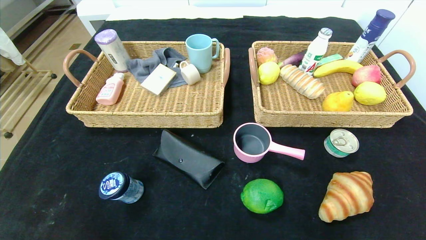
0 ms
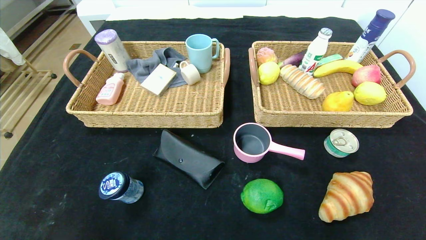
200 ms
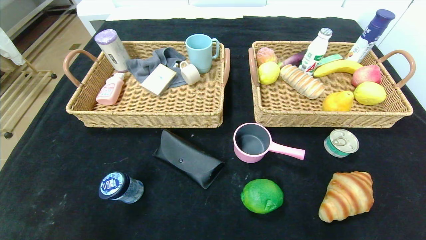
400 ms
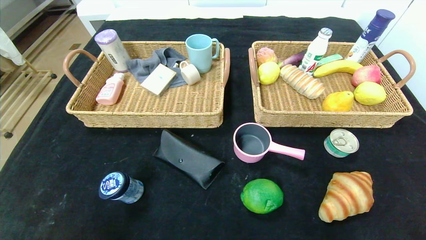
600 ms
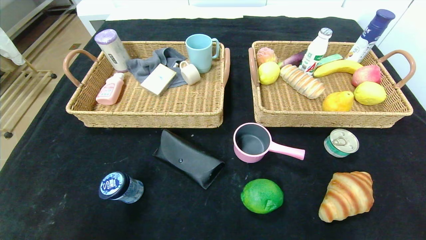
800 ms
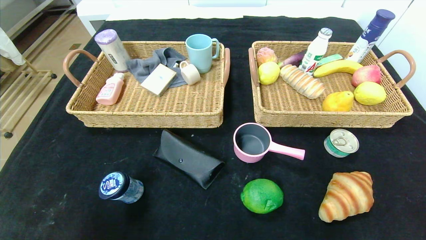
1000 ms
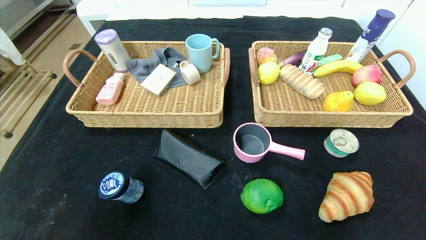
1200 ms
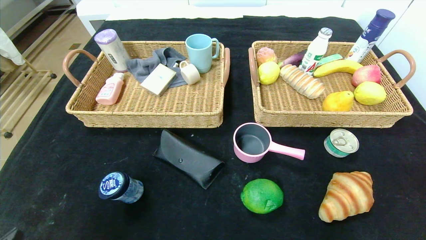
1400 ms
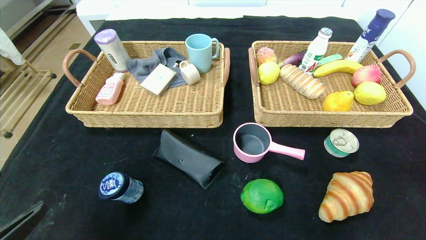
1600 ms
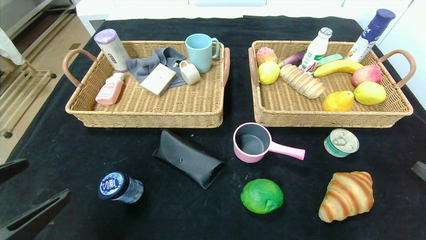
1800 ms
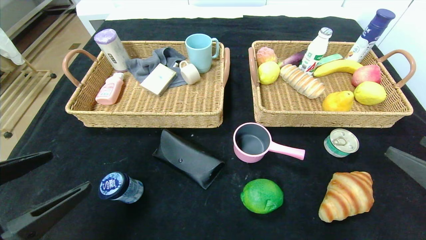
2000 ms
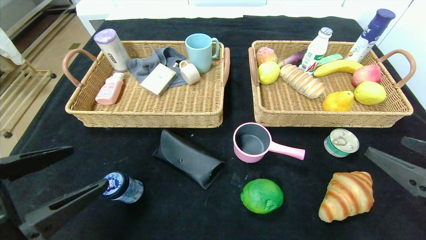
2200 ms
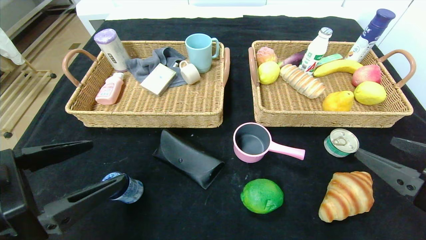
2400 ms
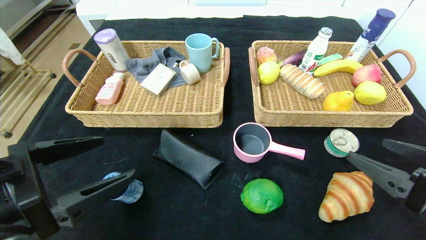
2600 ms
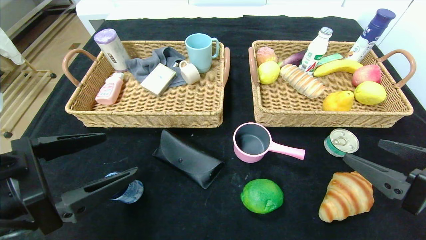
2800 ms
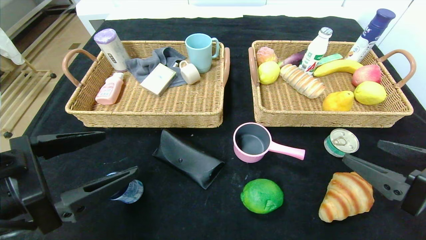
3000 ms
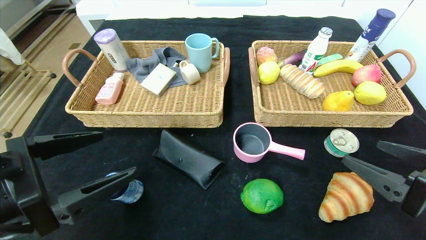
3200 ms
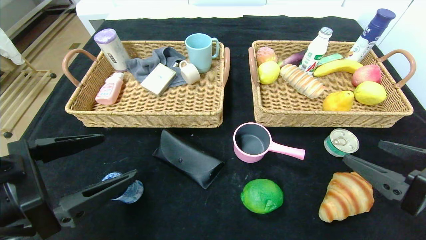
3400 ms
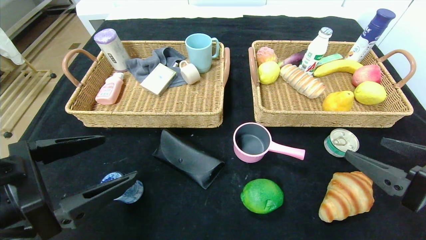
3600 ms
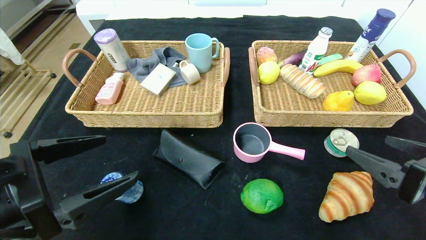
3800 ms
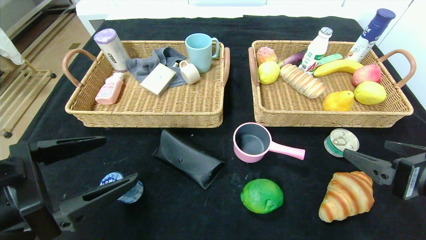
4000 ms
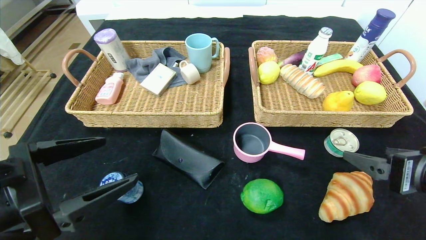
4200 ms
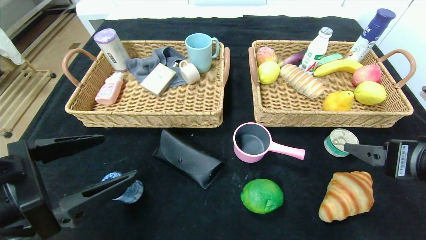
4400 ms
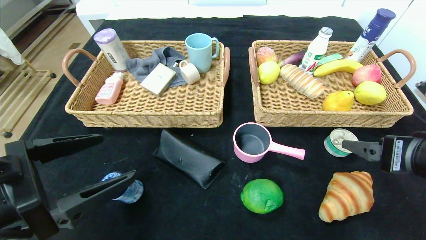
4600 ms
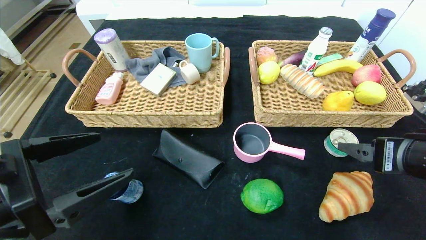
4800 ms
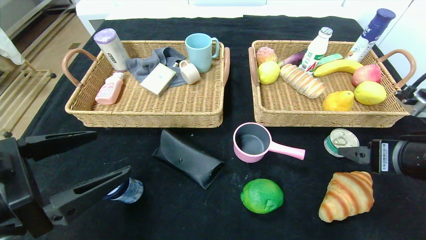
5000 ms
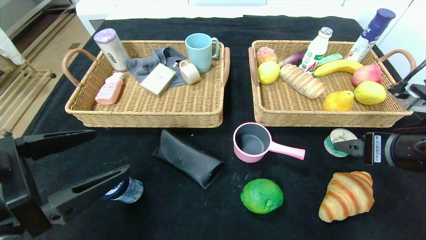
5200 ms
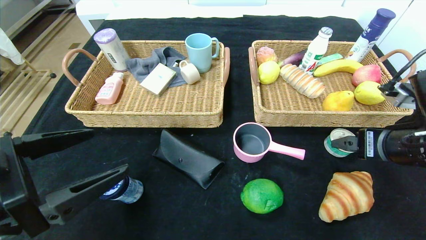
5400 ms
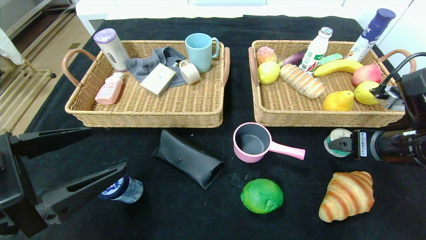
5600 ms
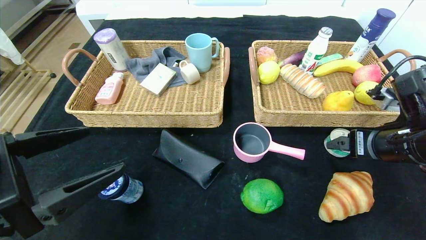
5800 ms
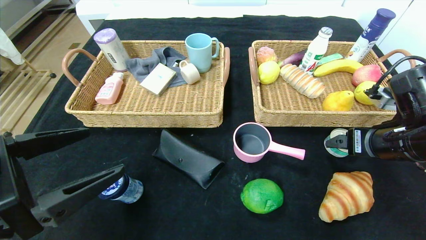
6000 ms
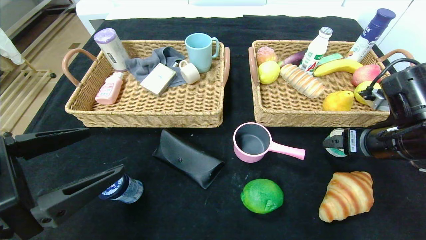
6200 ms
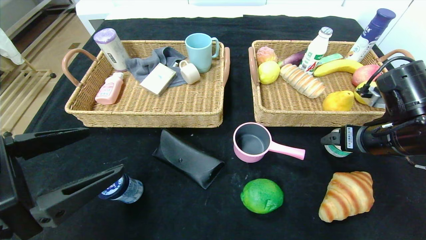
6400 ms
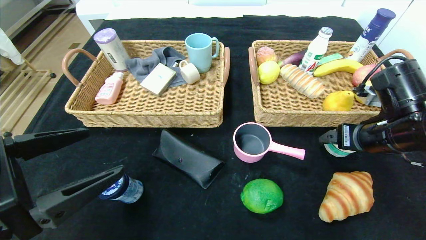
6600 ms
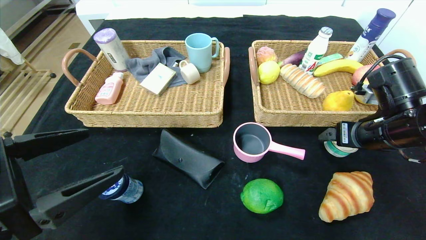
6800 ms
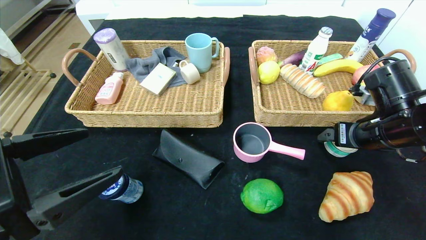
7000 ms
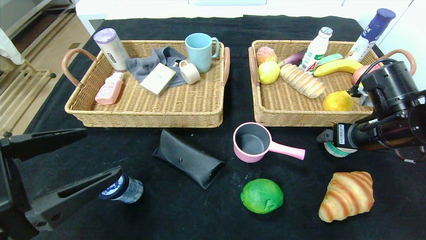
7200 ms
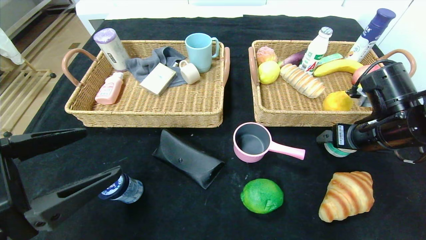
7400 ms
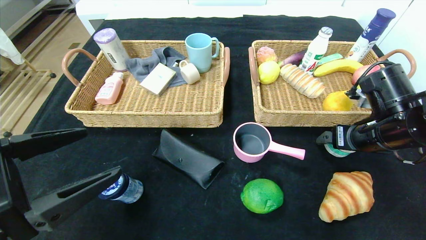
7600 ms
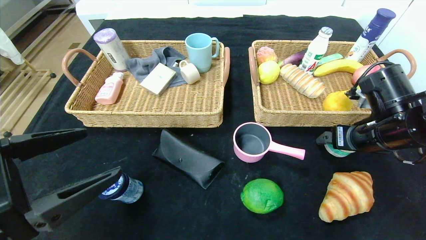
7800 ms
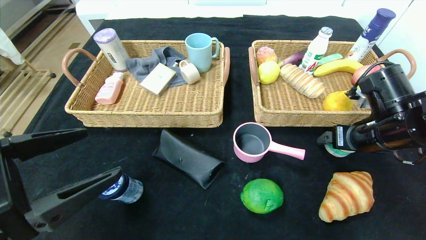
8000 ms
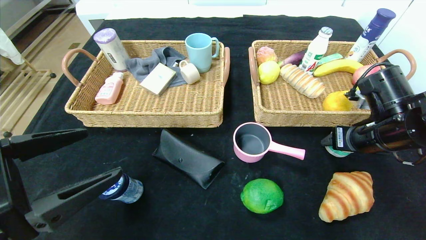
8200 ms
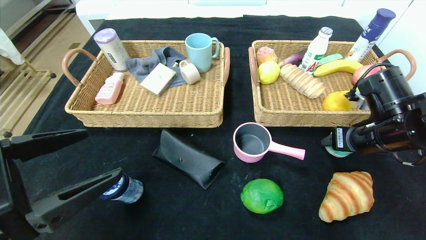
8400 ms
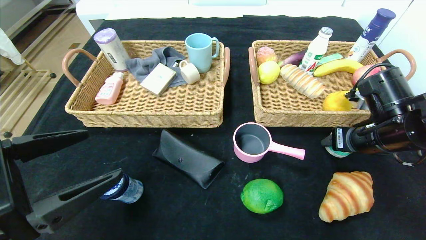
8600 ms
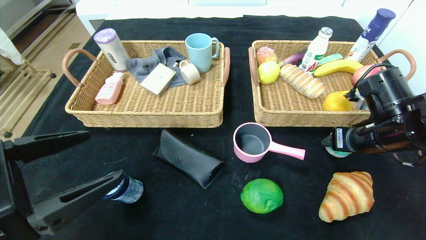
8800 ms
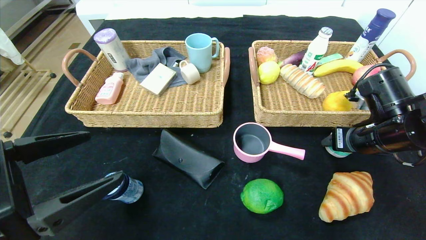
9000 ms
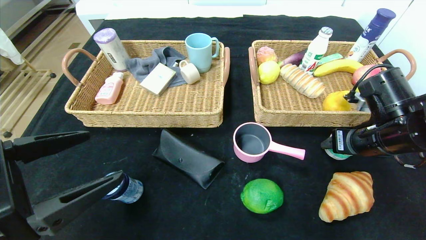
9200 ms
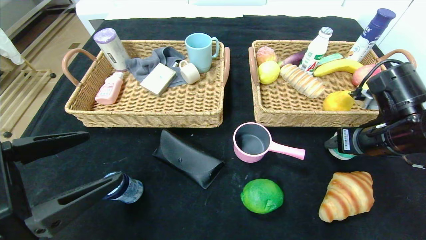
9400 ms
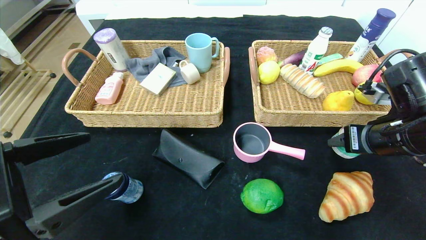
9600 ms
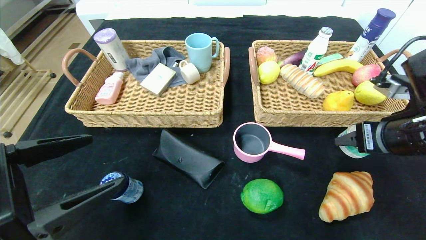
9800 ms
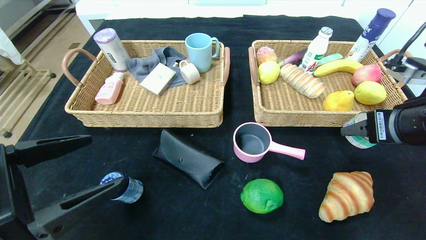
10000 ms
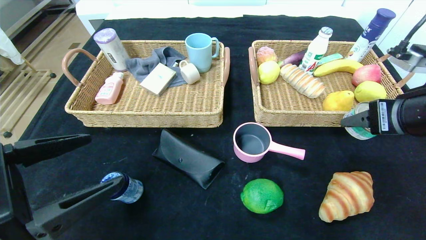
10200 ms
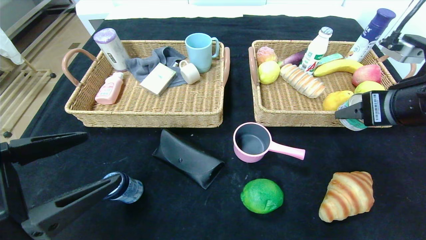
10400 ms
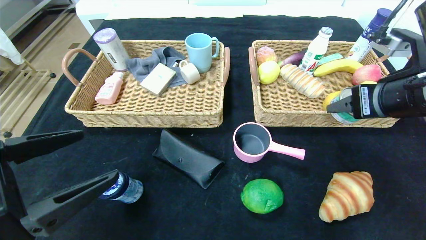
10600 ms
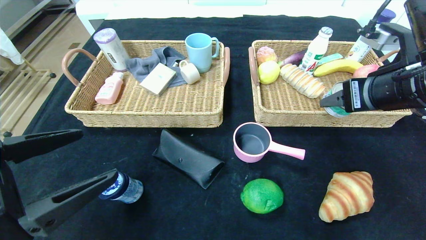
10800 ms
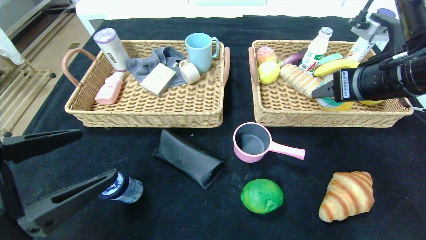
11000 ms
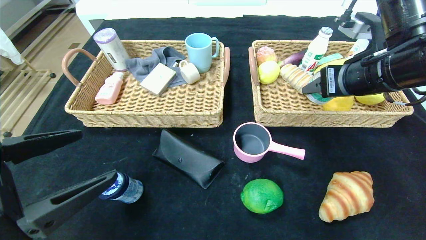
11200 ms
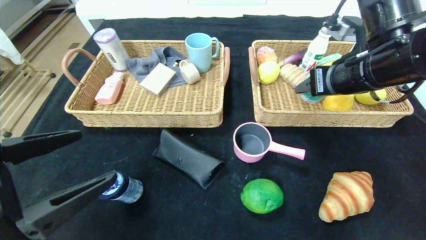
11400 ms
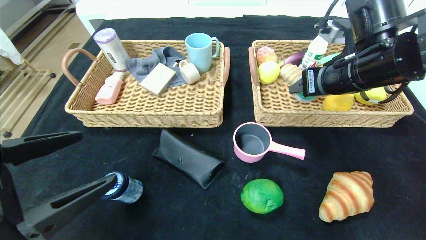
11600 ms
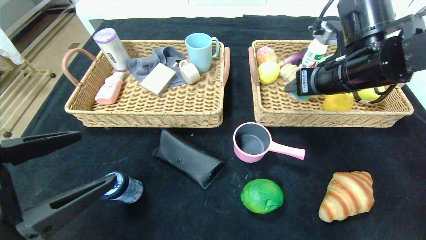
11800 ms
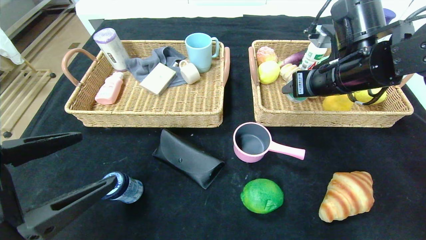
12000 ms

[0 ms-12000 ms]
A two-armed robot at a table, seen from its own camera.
0 ms to 1600 ms: The left gripper moves upward and forward, about 15 cm.
1600 ms to 3000 ms: The left gripper goes about 10 cm forward. The right gripper heads forward and to the left, covering approximately 10 cm.
4400 ms to 6000 ms: The right gripper moves forward, roughly 10 cm.
6000 ms to 7600 ms: There are only small adjustments of the grippers.
7600 ms to 9000 ms: The right gripper closes.
9000 ms to 10400 ms: The right gripper shifts about 10 cm upward and backward.
10400 ms to 12000 ms: The right gripper travels forward and to the left by some 10 cm.

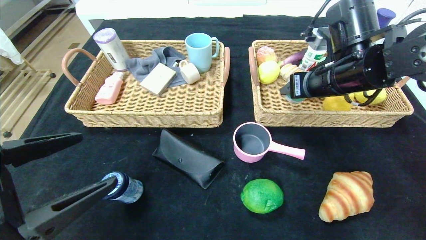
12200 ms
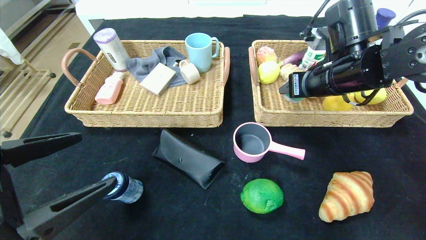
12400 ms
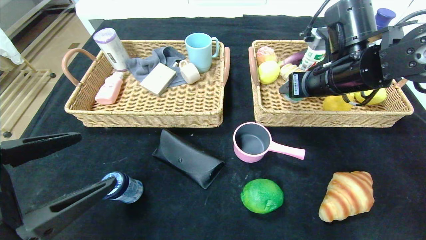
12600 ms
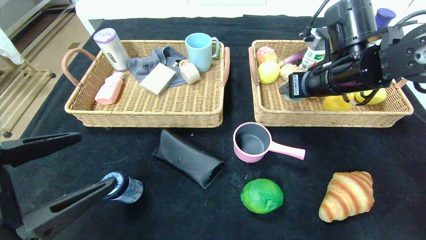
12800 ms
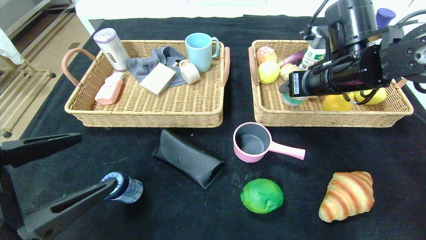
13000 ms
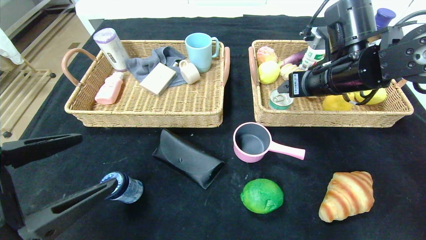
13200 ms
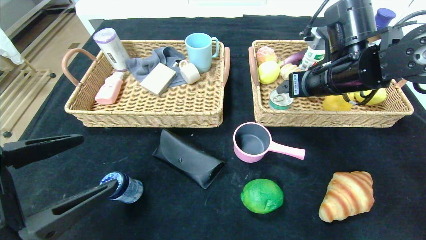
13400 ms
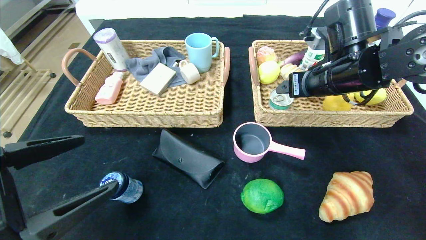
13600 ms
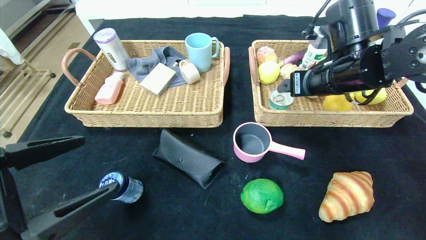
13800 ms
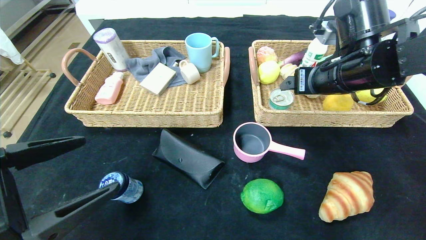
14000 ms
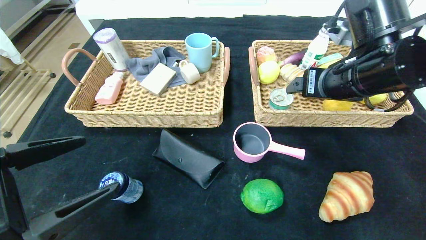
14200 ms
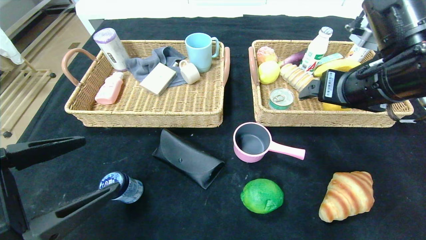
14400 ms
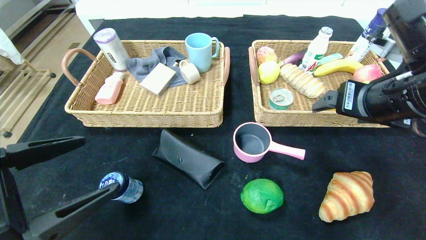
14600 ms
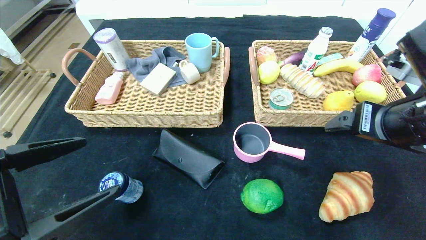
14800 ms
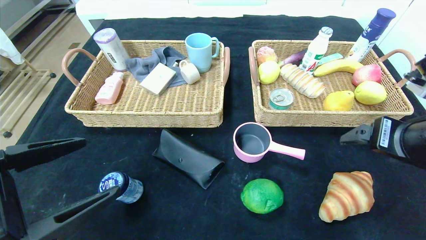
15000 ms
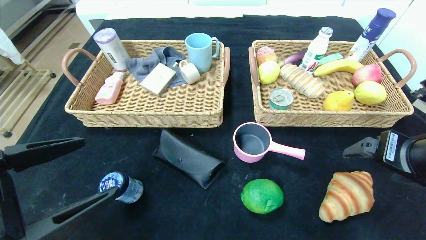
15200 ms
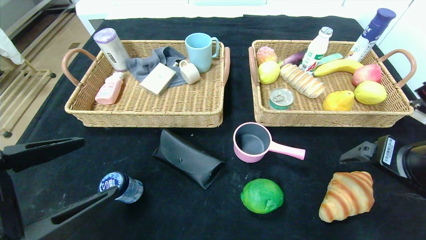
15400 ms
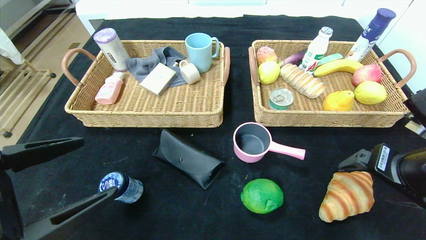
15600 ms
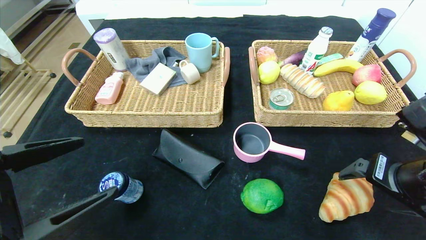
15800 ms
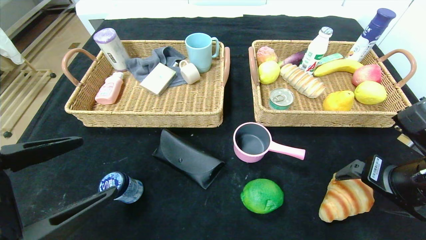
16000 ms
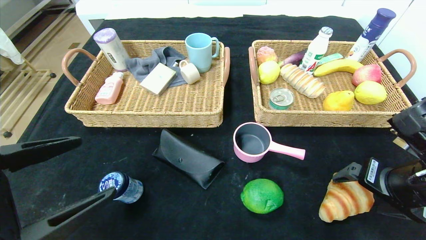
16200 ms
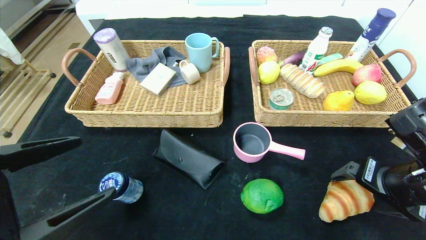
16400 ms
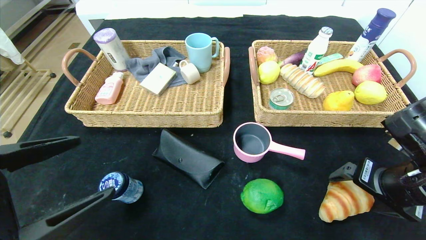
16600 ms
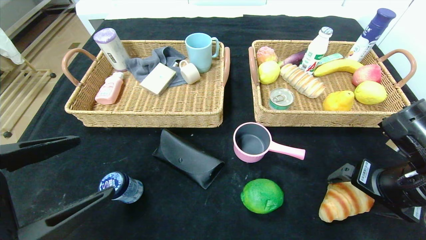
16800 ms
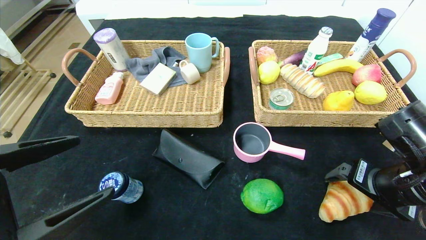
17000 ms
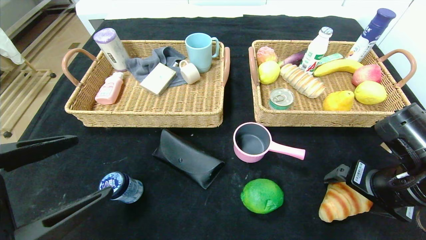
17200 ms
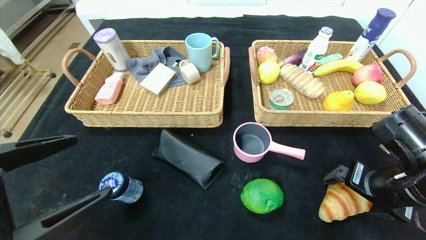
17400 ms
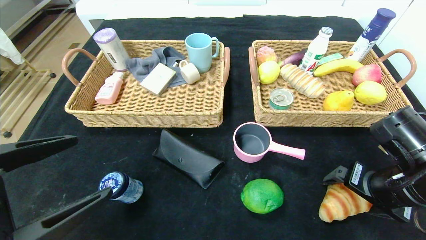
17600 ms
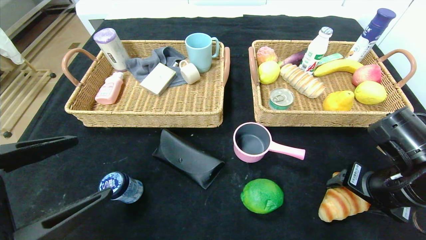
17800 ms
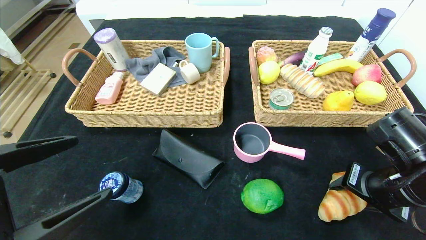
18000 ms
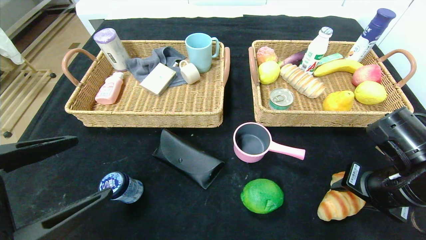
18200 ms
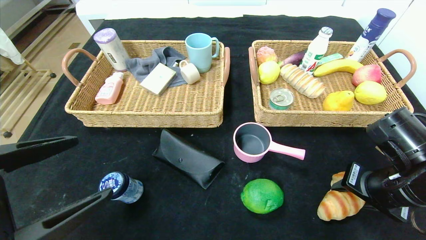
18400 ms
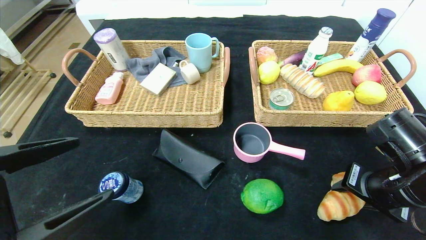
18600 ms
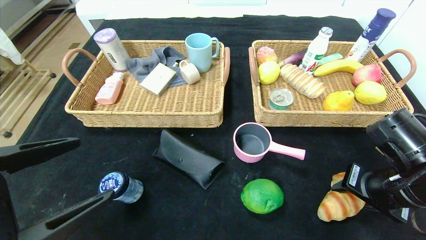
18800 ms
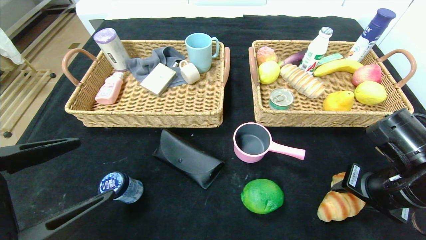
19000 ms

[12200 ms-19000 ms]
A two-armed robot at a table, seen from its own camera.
12200 ms to 13600 ms: The right gripper opens its fingers.
13600 ms to 15000 ms: The right gripper moves backward and to the right, approximately 15 cm.
15000 ms to 16200 ms: The right gripper moves downward, about 5 cm.
16200 ms to 17600 ms: The grippers move only a little.
17600 ms to 19000 ms: The right gripper closes.
